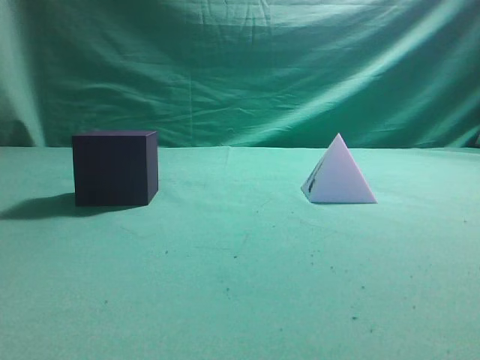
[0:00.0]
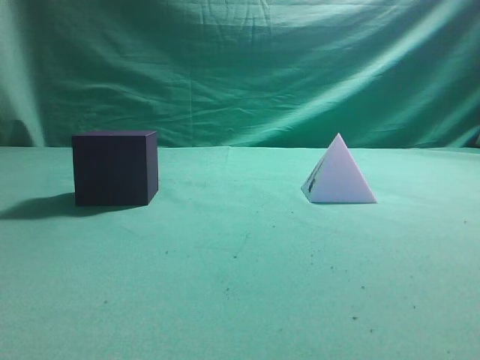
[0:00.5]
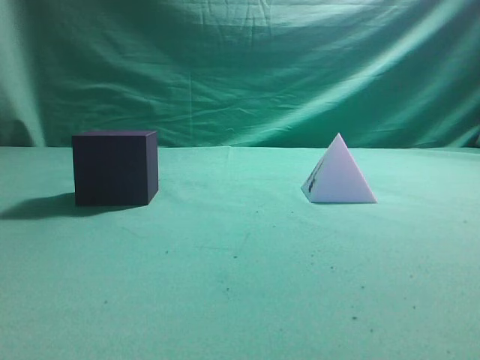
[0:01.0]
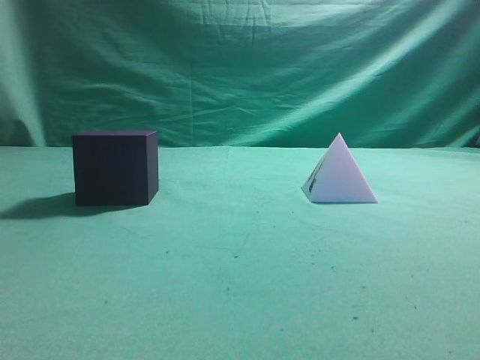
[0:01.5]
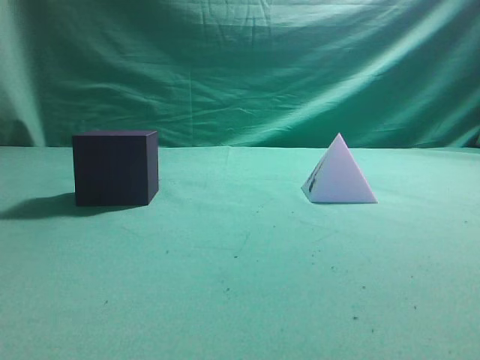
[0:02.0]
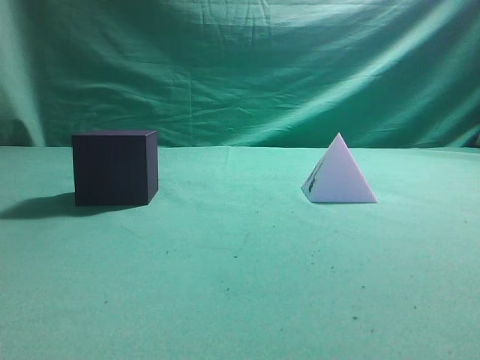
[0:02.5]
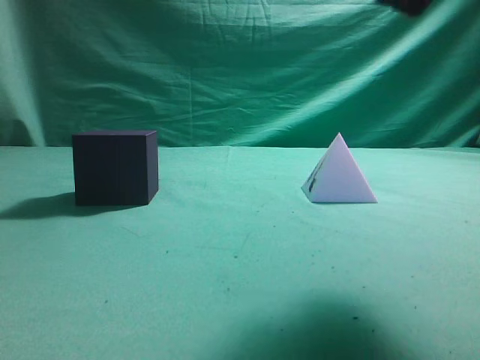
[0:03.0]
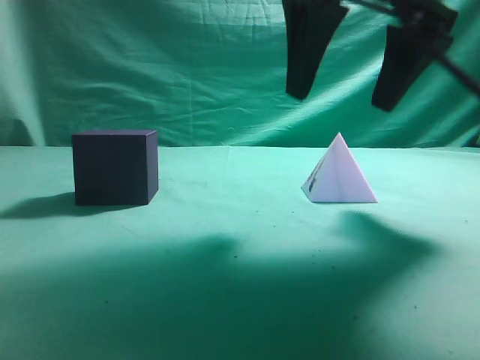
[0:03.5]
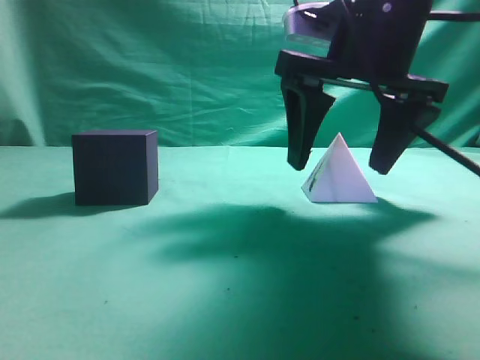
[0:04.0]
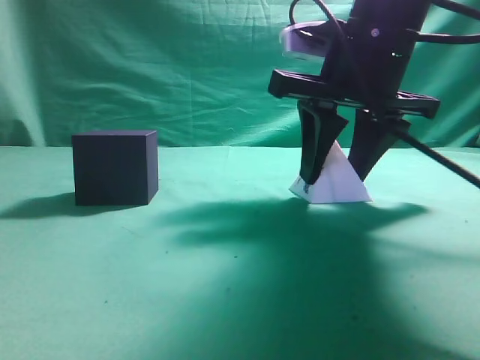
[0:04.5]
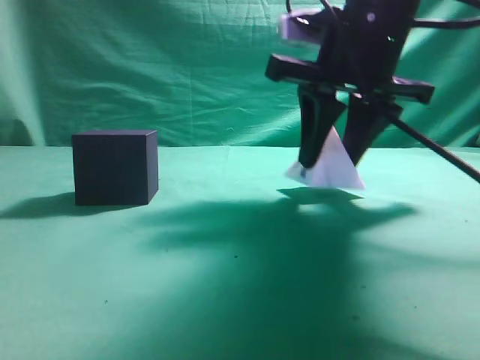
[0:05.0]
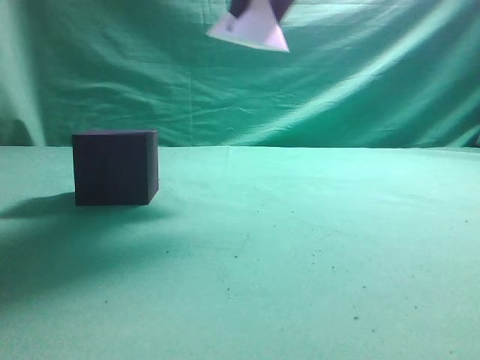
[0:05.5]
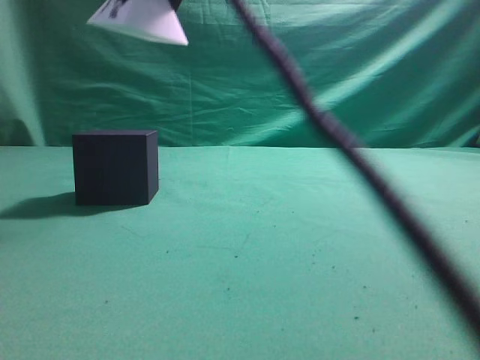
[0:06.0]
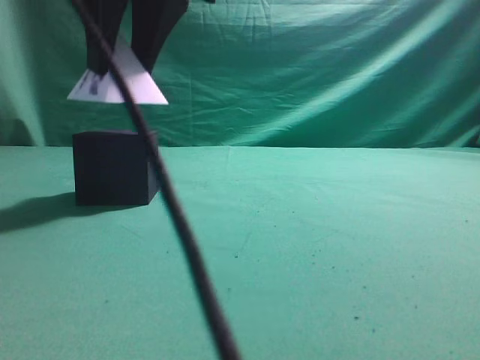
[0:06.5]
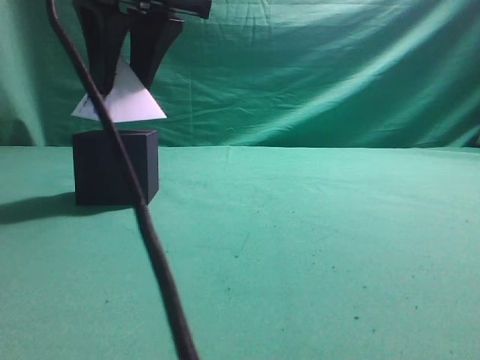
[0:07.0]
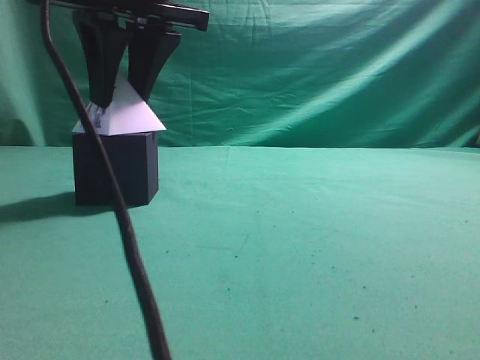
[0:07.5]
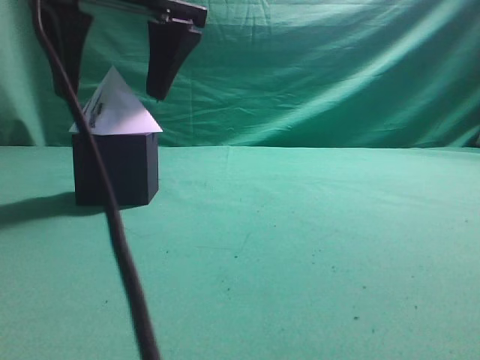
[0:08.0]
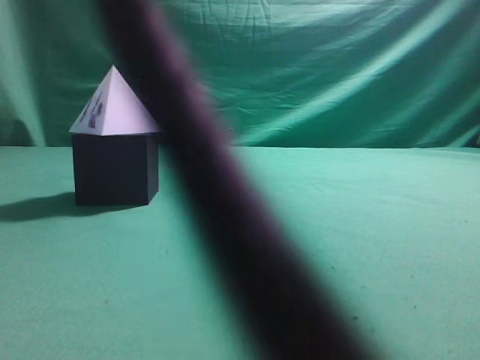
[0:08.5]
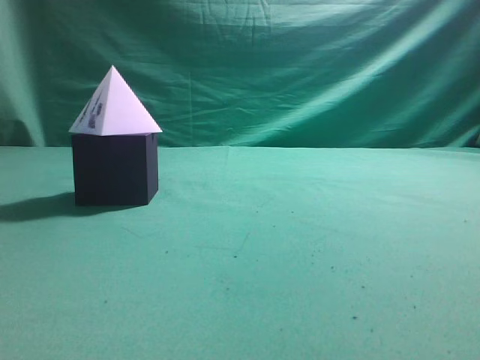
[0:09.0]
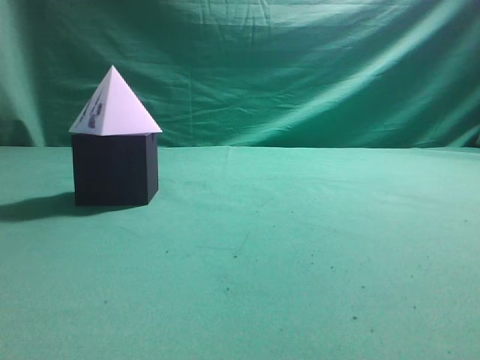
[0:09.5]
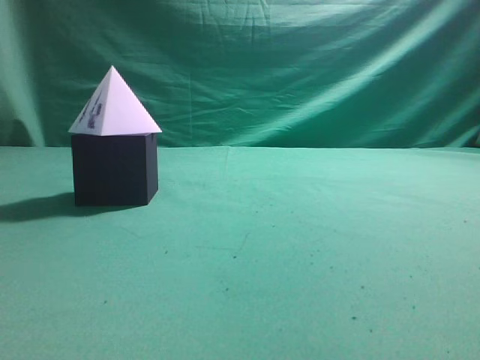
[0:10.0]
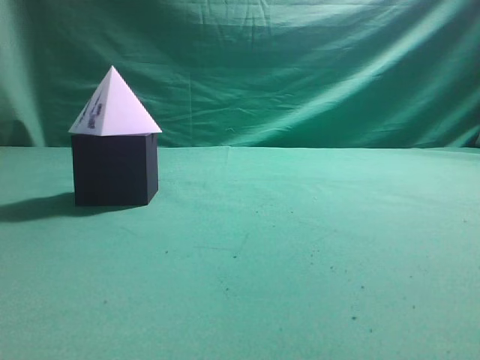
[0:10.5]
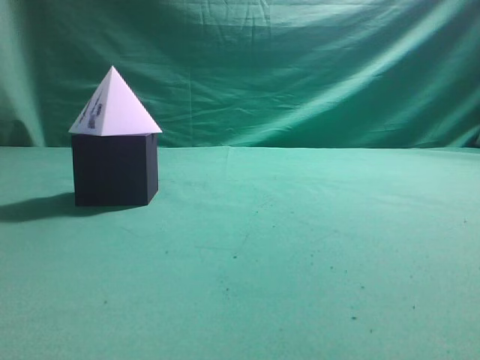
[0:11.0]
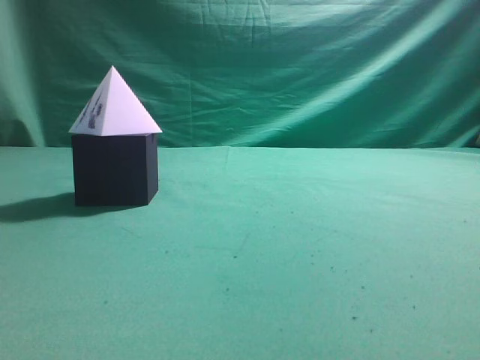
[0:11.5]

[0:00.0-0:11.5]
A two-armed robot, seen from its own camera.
Task of the whole recording: pick up the square pyramid from the table and place it on the cube block.
Step, 0:00.0 to 0:05.0: Grasp the triangular block.
Step, 0:05.5 to 0:08.0: Place the block onto the cube-shaped block.
0:02.0 to 0:04.0: The right gripper moves forward, to the left and downward, approximately 30 cm, and opens.
0:04.0 to 0:06.0: The right gripper goes approximately 20 cm to the left and upward, and closes up.
0:06.0 to 0:07.5: The right gripper goes roughly 10 cm downward and to the left.
0:07.5 to 0:09.5: The right gripper shifts some 30 cm upward, to the right and backward, and closes its fingers.
